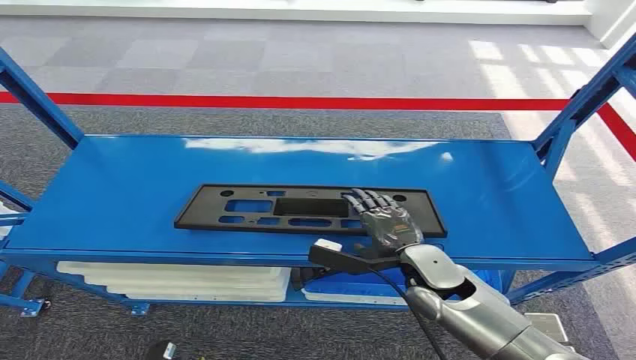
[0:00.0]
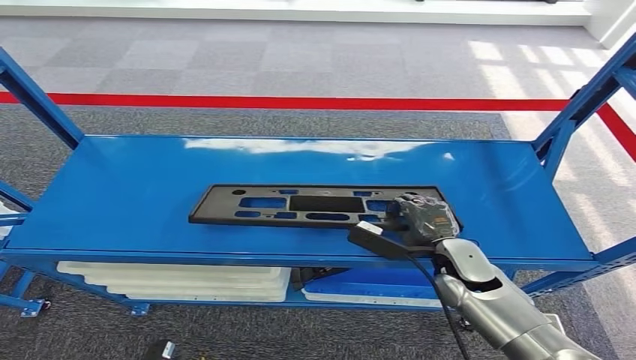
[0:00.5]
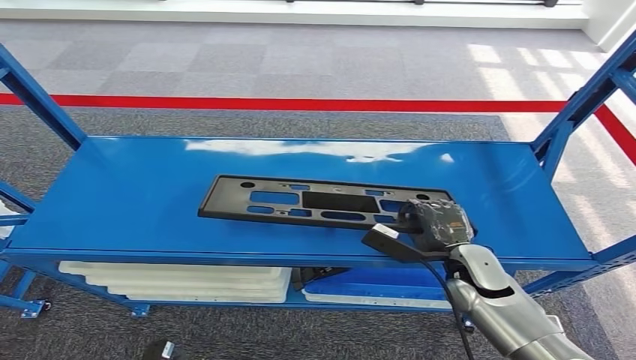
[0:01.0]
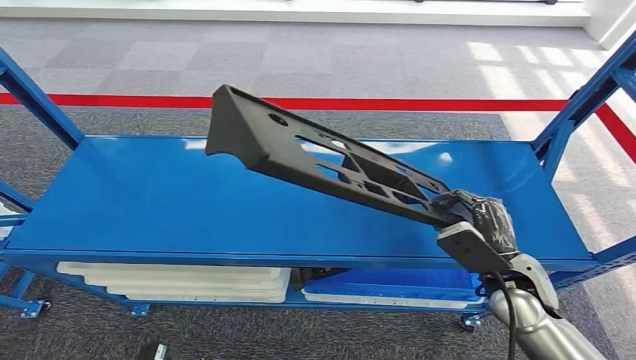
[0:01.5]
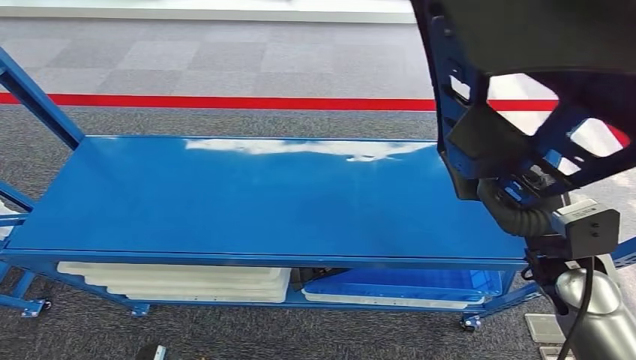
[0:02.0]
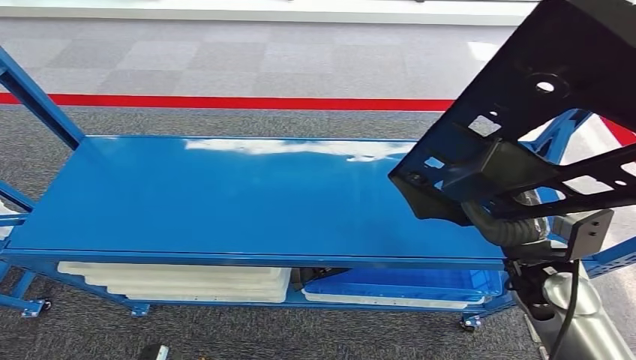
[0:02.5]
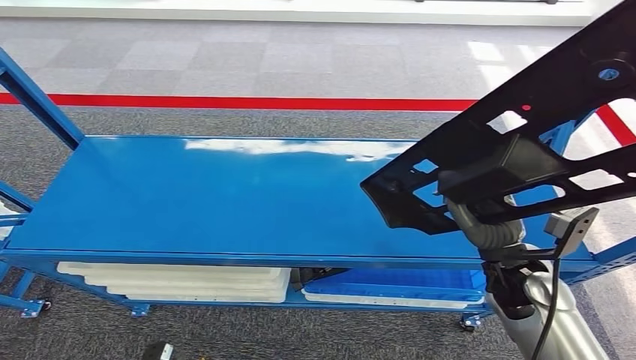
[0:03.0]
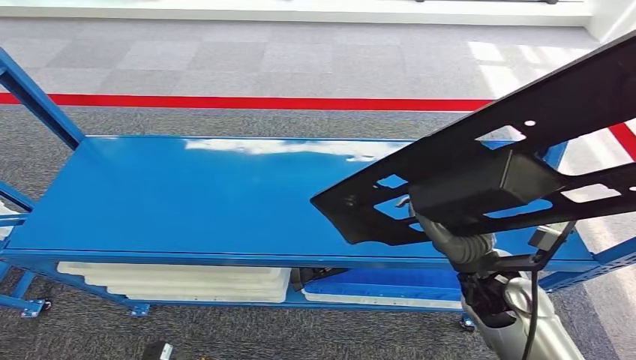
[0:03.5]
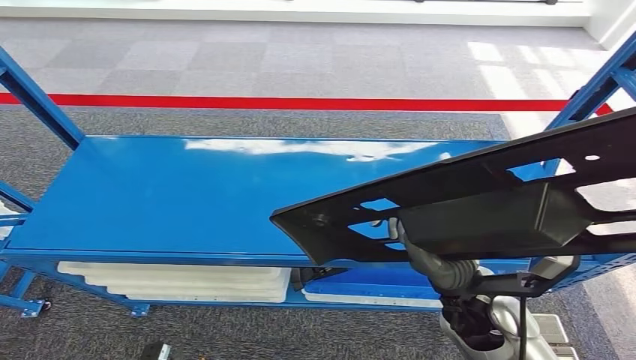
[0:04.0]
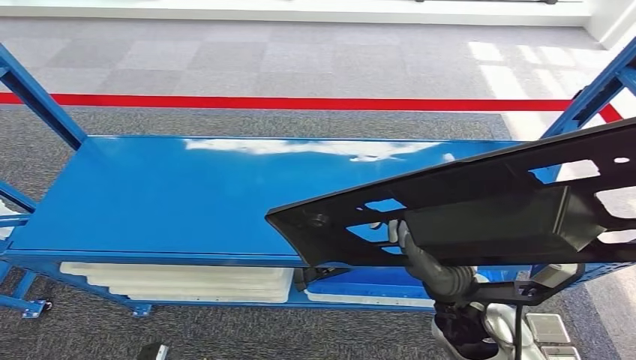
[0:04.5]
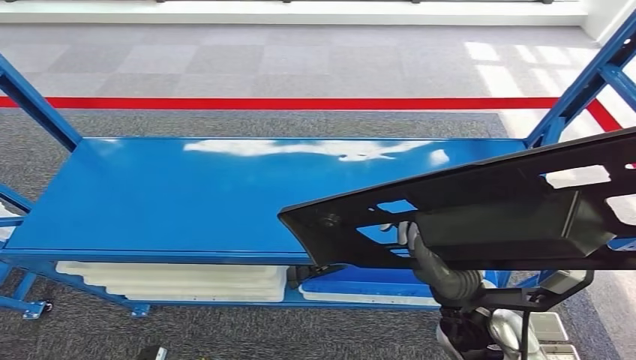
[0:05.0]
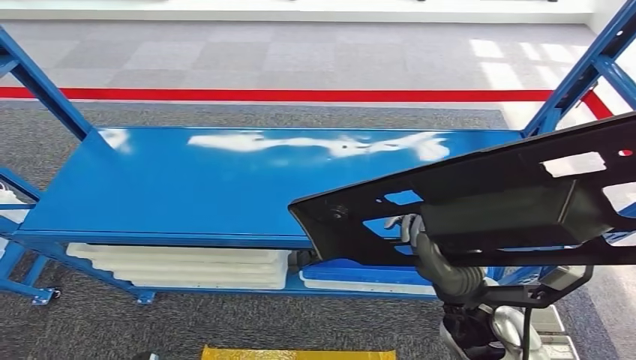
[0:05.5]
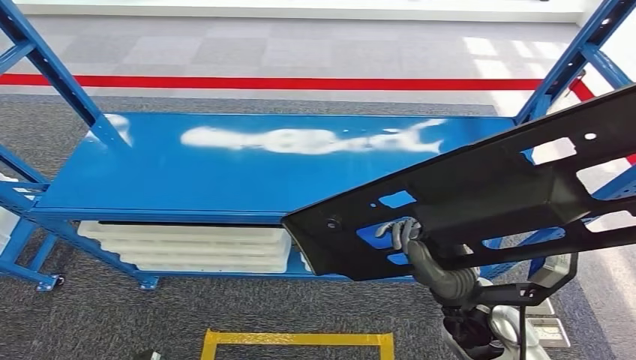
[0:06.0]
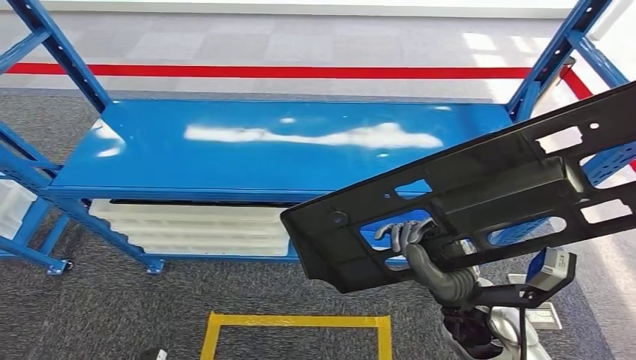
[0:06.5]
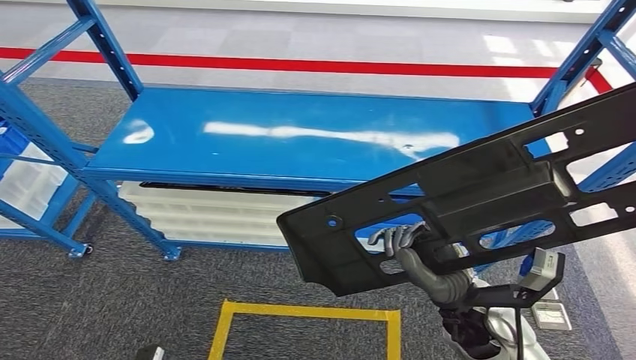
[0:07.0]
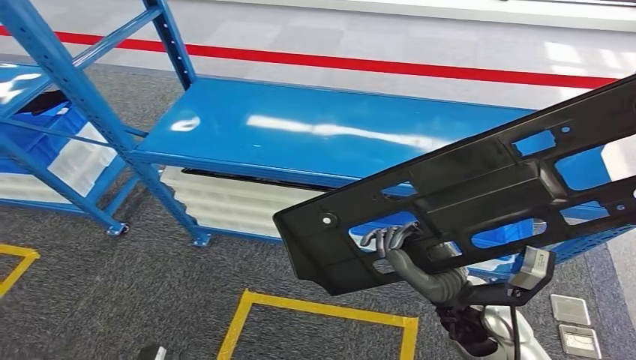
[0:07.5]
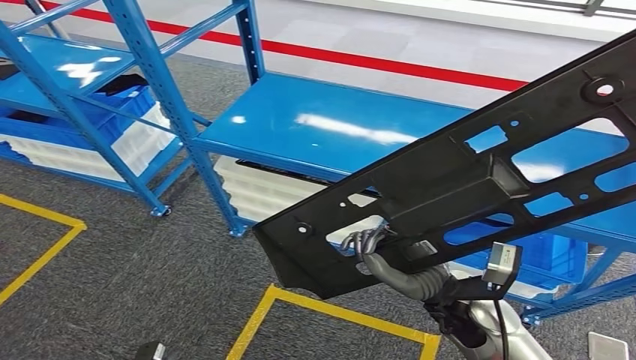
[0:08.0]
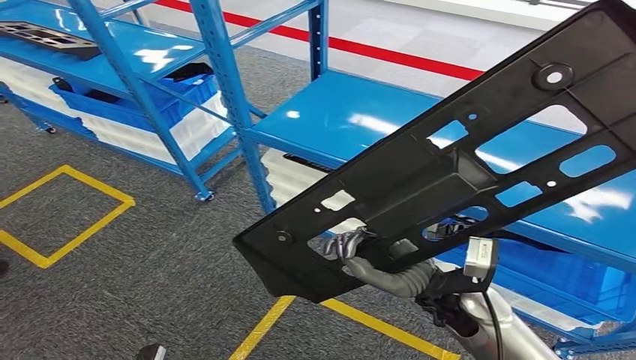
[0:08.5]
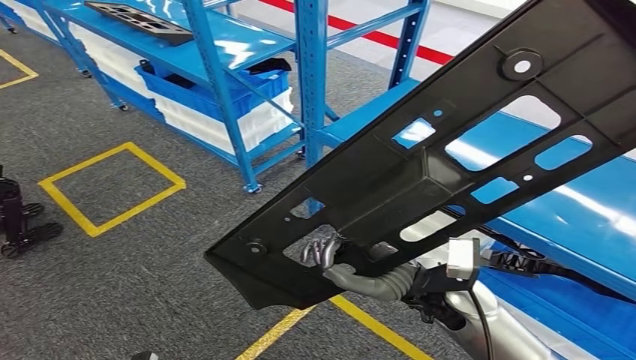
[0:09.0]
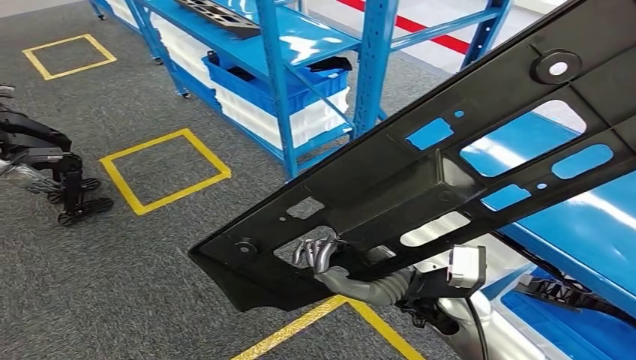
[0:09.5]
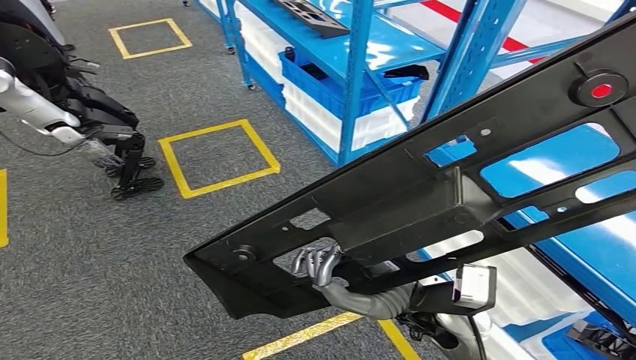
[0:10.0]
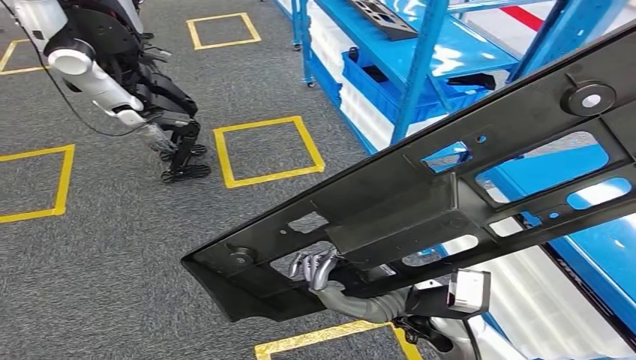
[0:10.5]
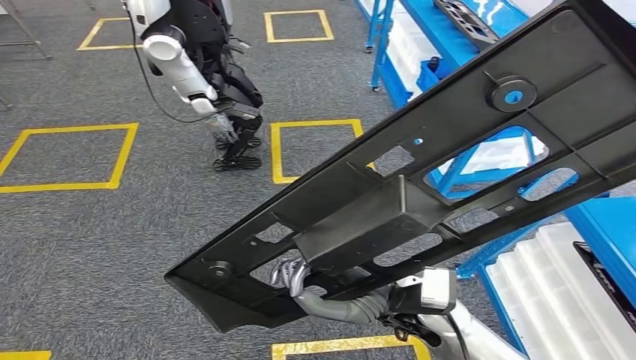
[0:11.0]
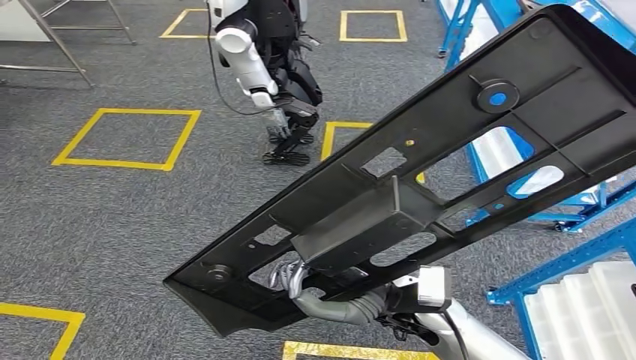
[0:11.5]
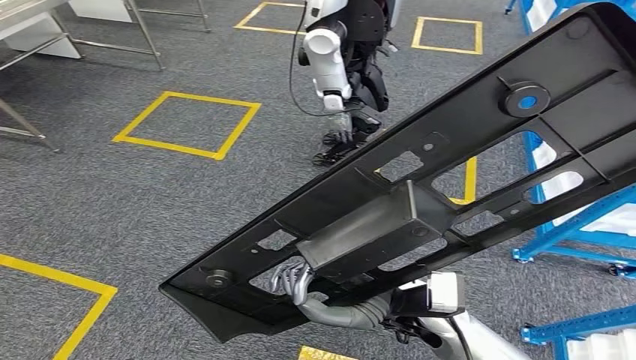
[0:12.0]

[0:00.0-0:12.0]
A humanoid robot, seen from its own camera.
Step, 0:00.0 to 0:02.0: Pick up the large material from the shelf.

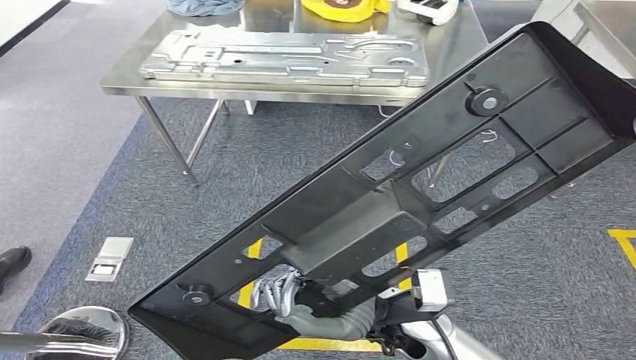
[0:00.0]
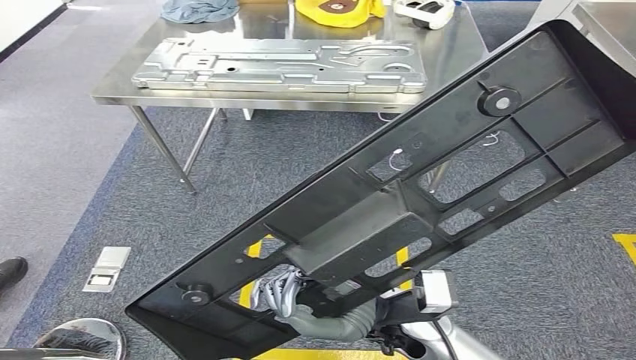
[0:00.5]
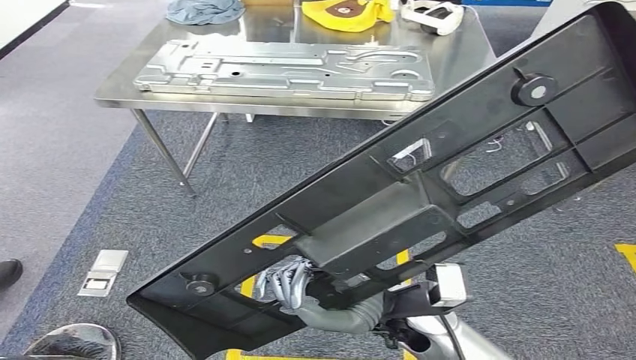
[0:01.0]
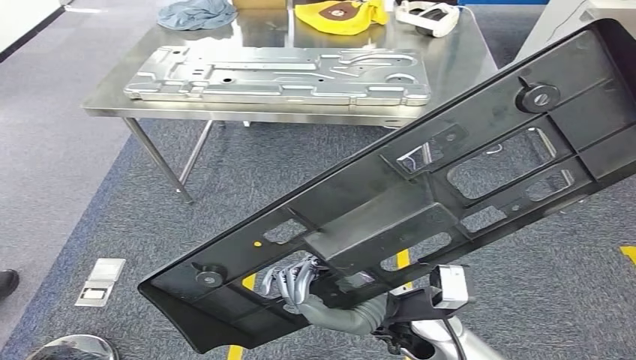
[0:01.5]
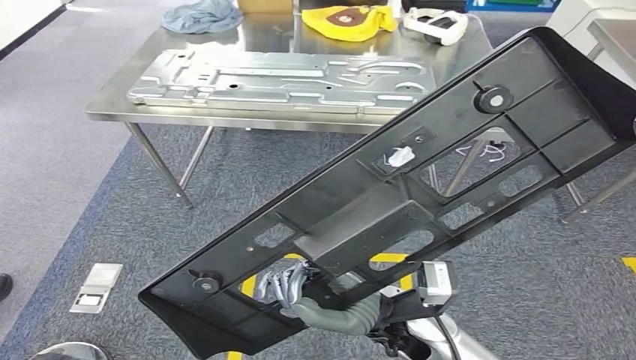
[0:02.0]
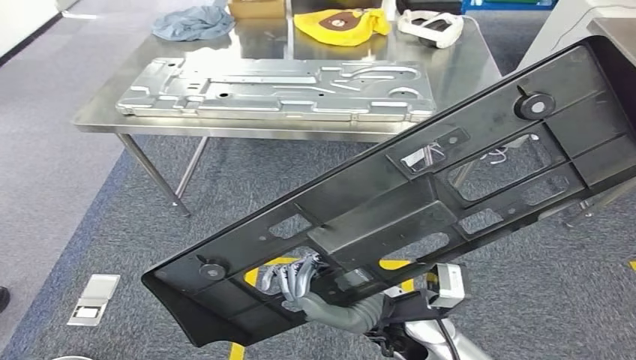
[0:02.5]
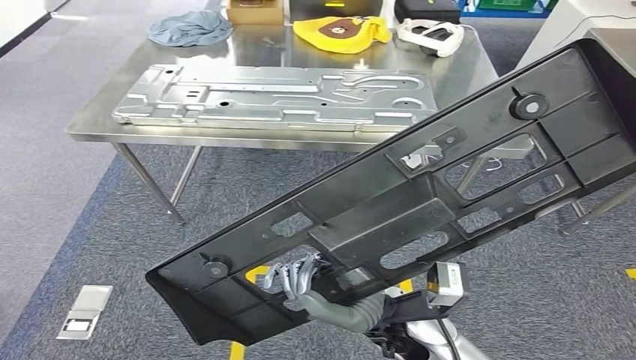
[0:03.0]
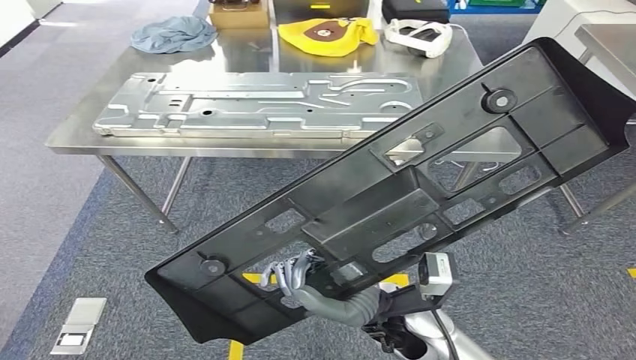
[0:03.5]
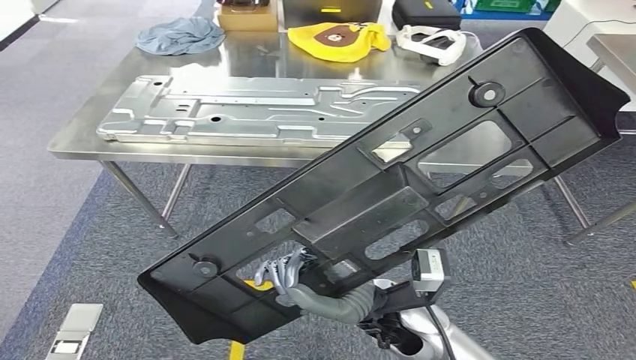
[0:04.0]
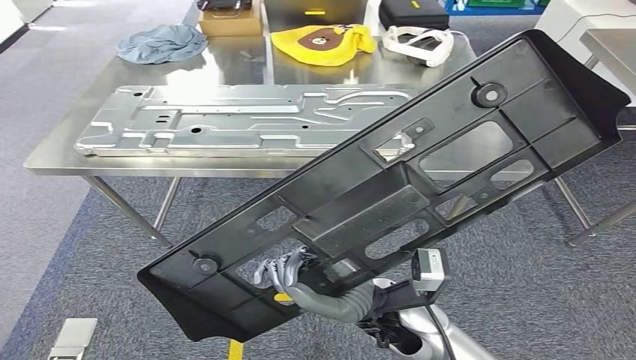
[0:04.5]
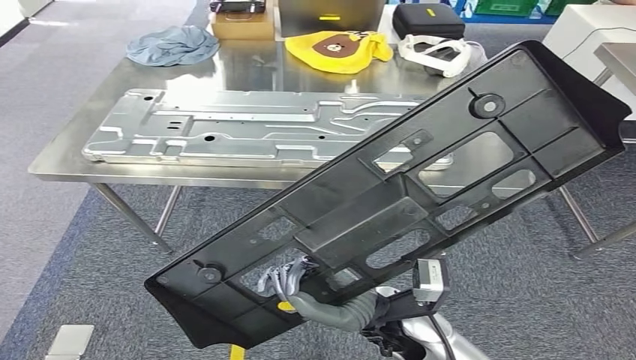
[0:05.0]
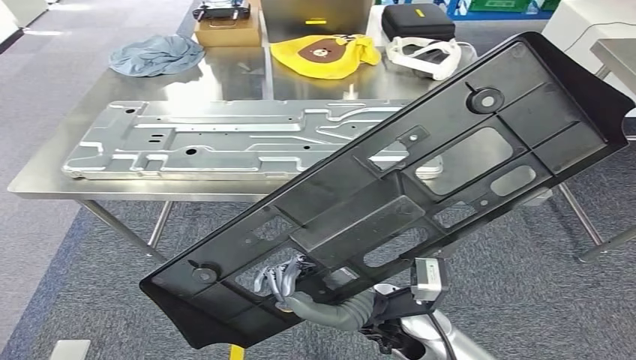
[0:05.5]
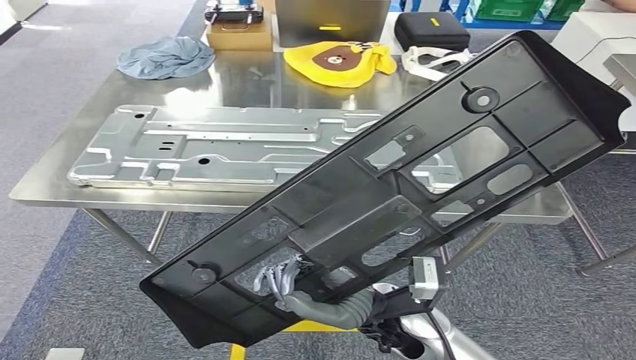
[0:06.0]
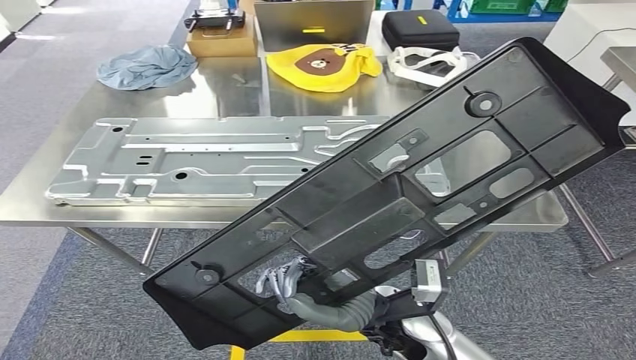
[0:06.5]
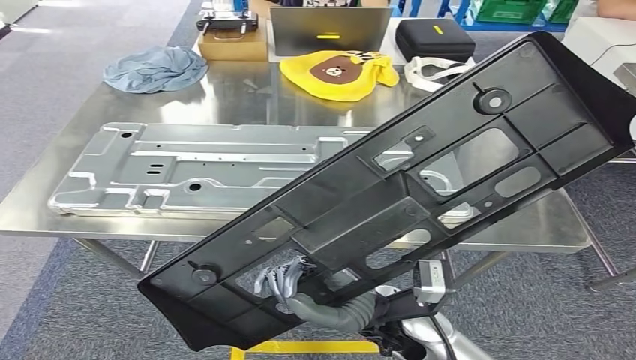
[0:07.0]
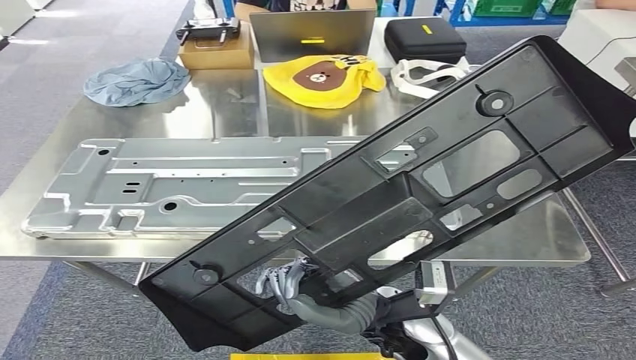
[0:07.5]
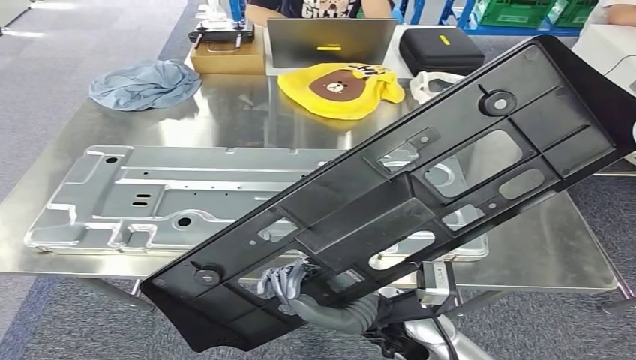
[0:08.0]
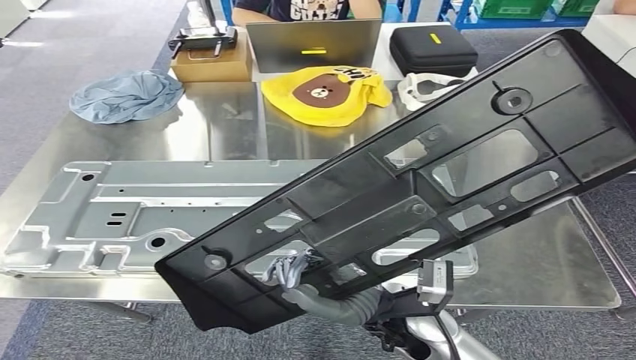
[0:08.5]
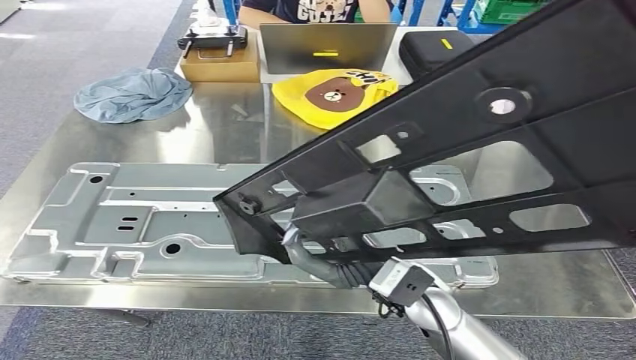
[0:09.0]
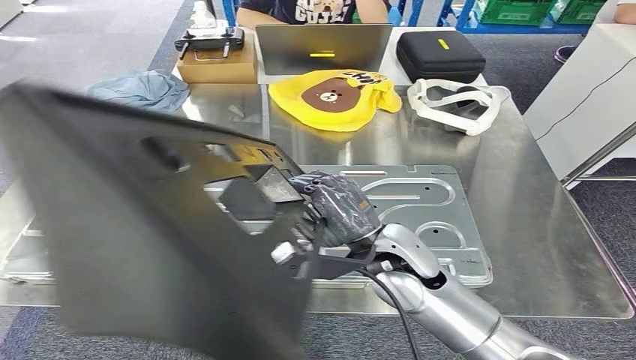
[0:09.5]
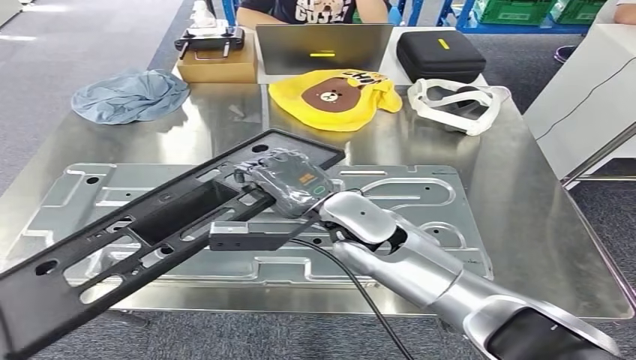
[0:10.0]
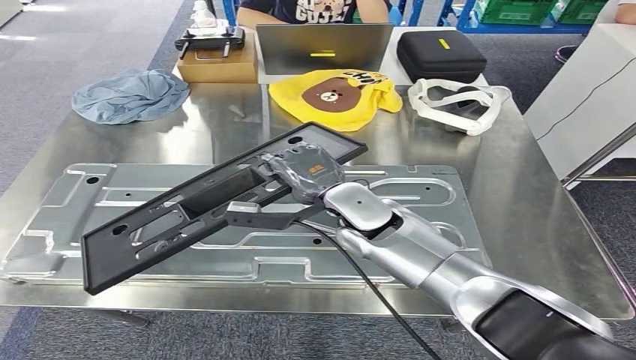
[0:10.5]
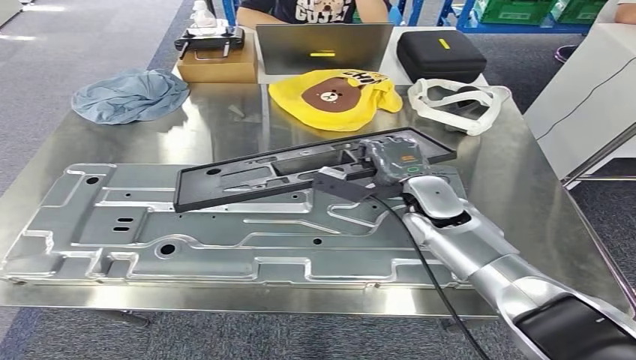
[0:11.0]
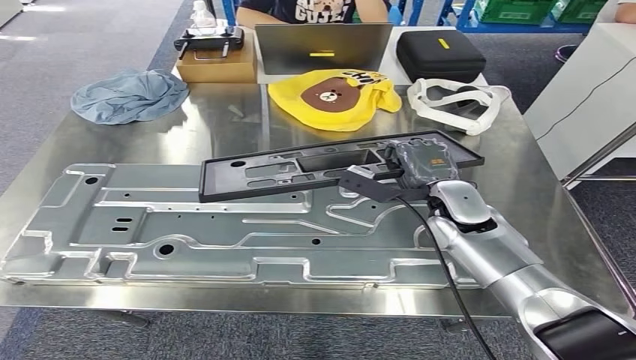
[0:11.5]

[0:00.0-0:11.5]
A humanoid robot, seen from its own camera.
Step, 0:00.0 to 0:09.0: Move the large material to the workbench.
